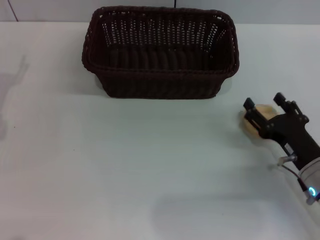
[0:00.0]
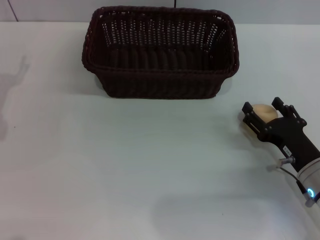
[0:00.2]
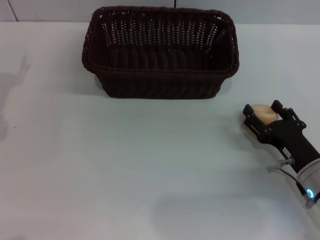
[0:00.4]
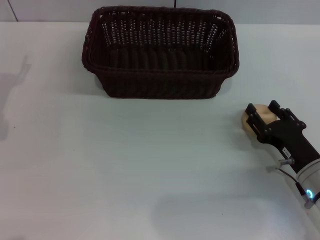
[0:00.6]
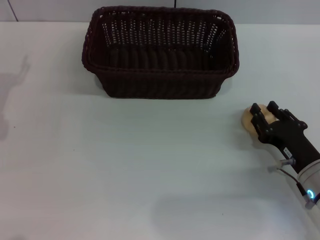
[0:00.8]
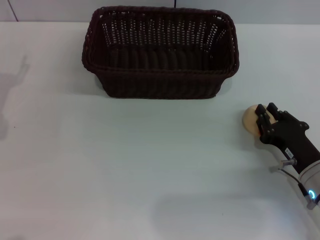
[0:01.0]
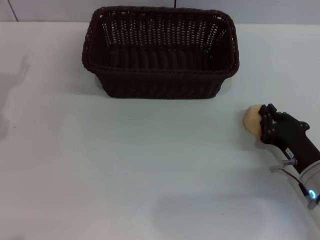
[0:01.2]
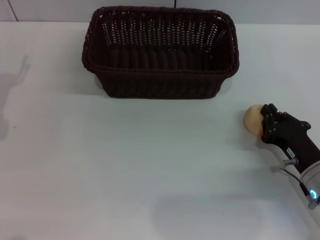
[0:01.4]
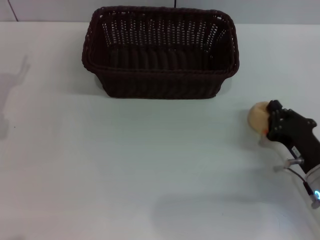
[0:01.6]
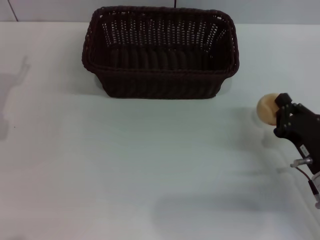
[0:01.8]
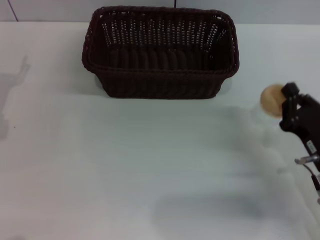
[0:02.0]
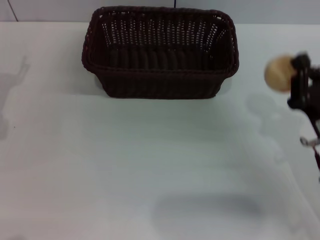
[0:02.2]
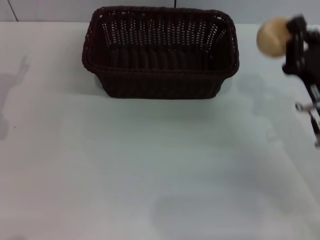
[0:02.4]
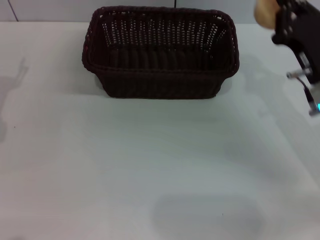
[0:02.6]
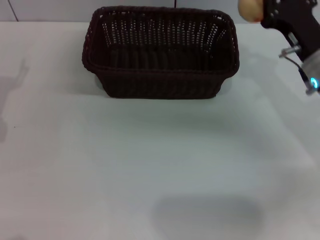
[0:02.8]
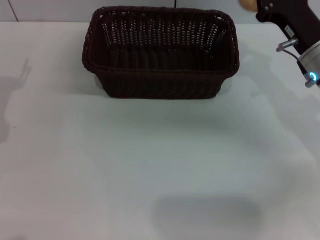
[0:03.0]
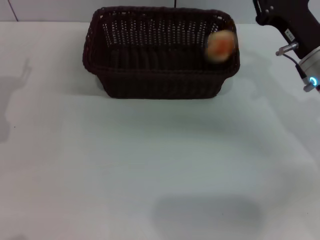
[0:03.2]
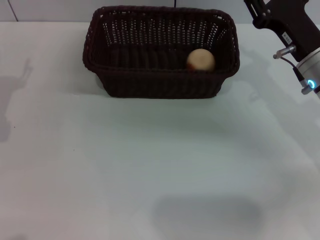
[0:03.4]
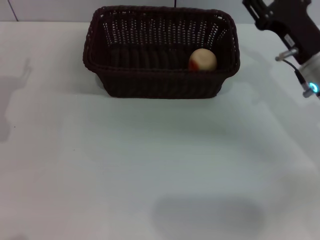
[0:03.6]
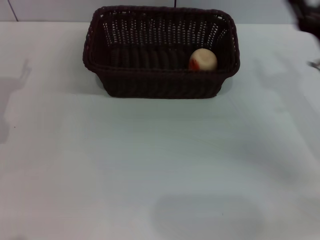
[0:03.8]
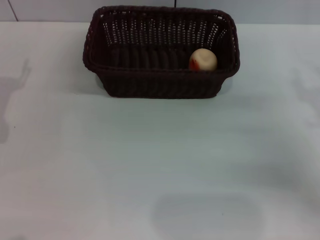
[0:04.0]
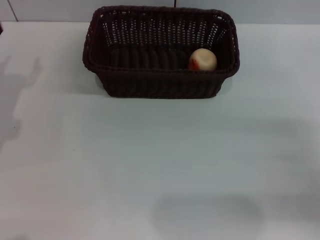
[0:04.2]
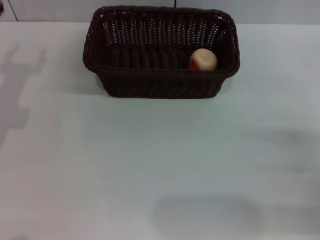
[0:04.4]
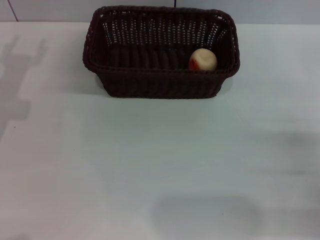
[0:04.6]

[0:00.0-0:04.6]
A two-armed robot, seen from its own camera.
Step, 0:00.0 to 0:02.0: Pick up the egg yolk pastry with the right gripper.
Step, 0:02.2 to 0:03.2: Place the egg yolk pastry into the basket with the right gripper.
0:00.0 to 0:01.6: The right gripper closes its fingers.
0:01.6 to 0:03.0: The right gripper moves forward and upward, approximately 15 cm.
0:03.0 to 0:04.6: The left gripper ends up about 5 cm from where it was. Meanwhile the right gripper heads backward and to the right, covering roughly 20 cm, and opens its fingers.
